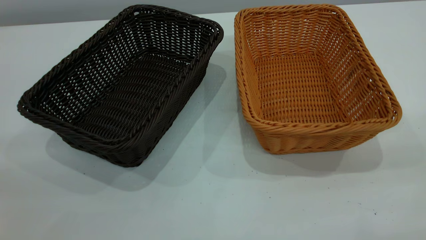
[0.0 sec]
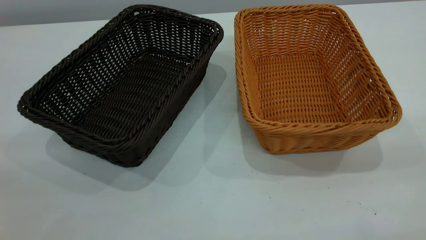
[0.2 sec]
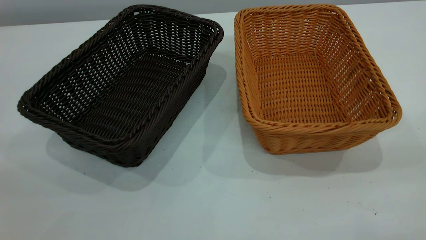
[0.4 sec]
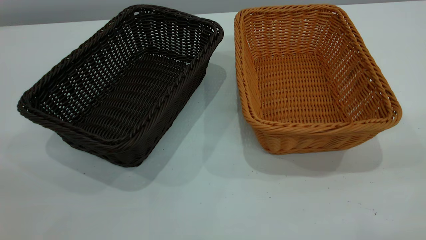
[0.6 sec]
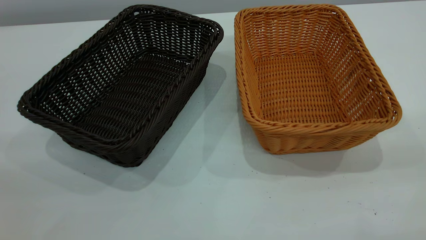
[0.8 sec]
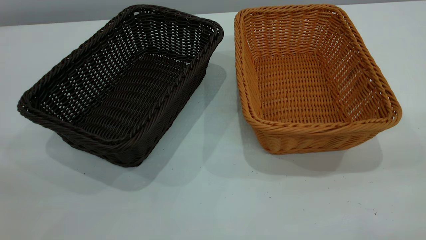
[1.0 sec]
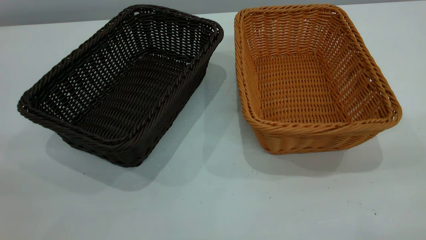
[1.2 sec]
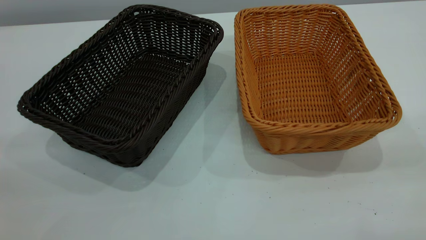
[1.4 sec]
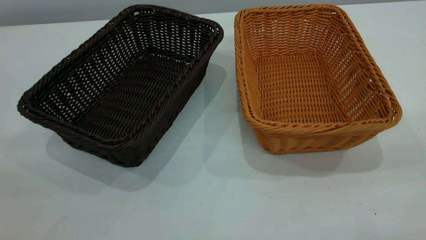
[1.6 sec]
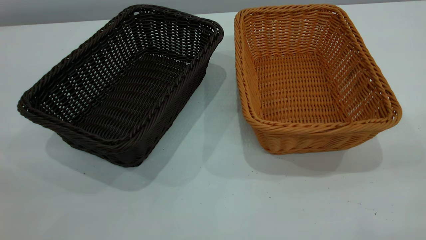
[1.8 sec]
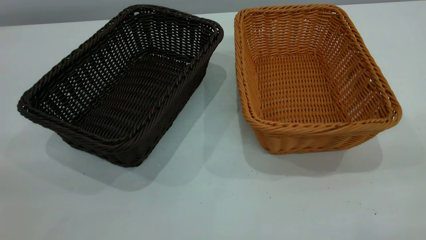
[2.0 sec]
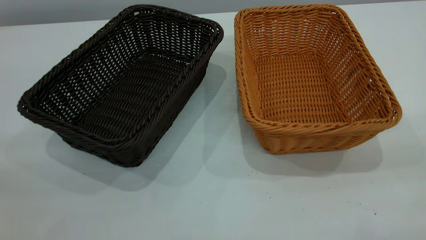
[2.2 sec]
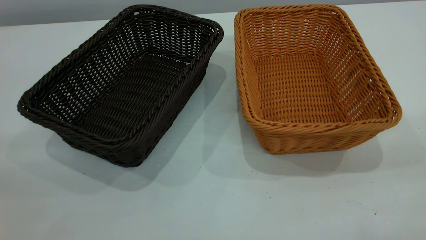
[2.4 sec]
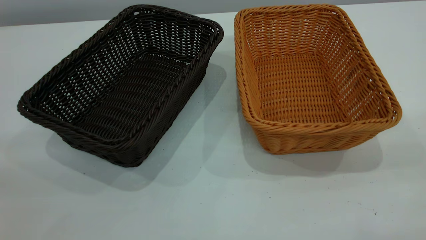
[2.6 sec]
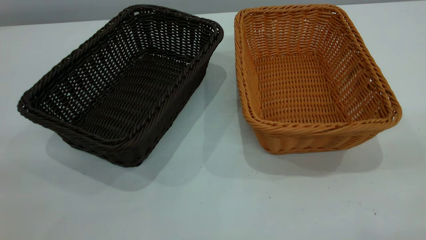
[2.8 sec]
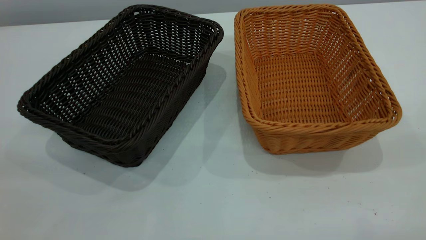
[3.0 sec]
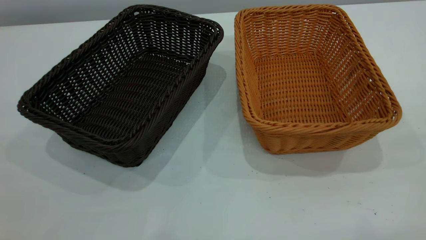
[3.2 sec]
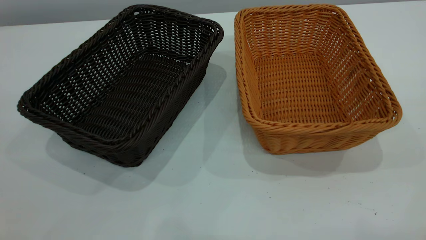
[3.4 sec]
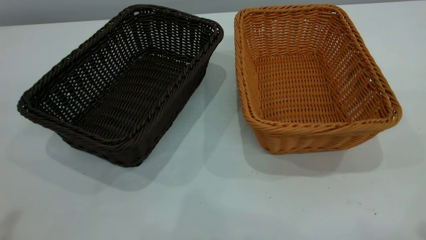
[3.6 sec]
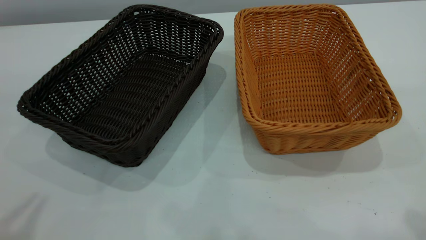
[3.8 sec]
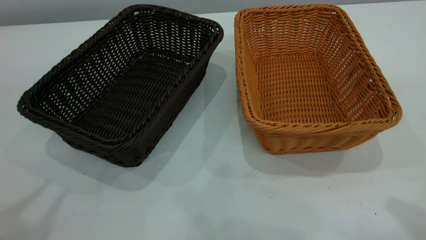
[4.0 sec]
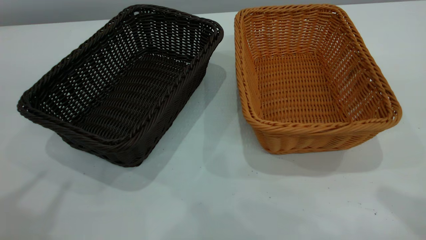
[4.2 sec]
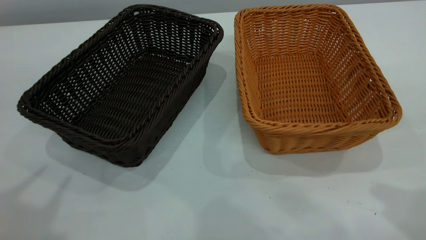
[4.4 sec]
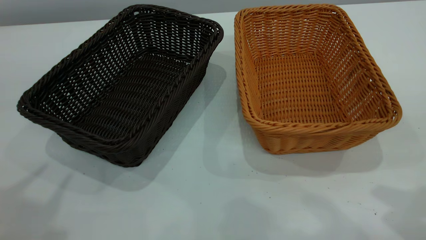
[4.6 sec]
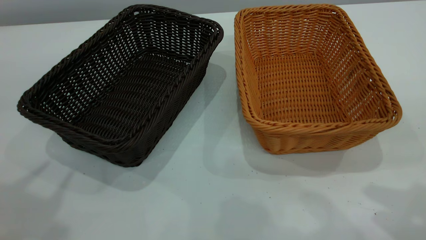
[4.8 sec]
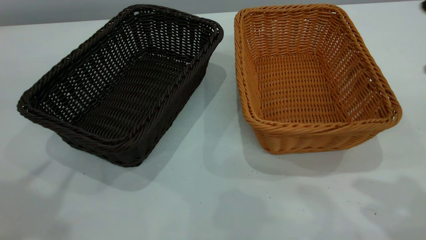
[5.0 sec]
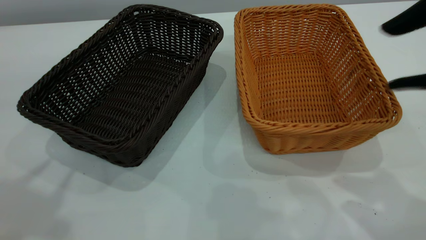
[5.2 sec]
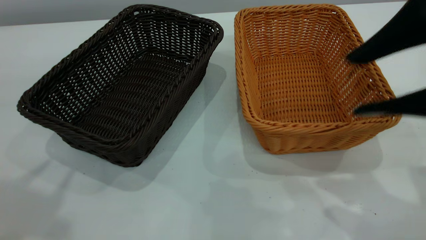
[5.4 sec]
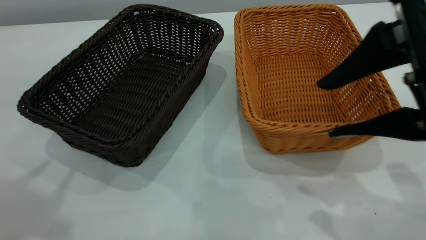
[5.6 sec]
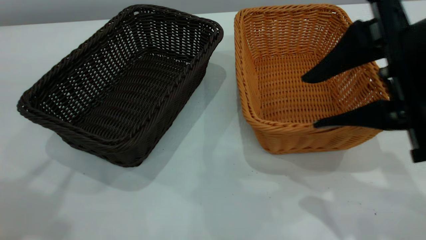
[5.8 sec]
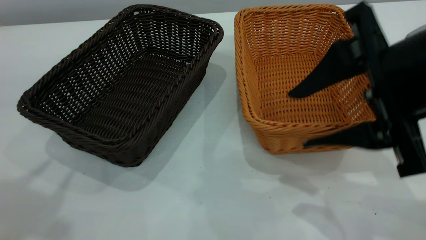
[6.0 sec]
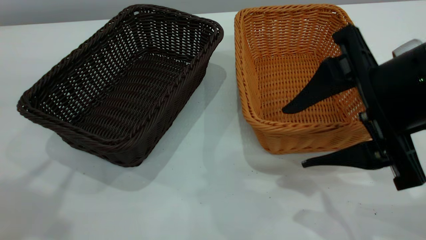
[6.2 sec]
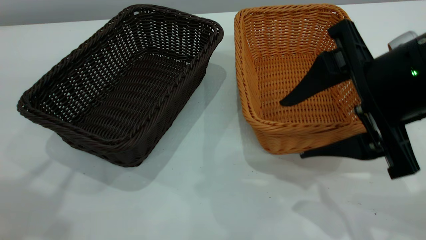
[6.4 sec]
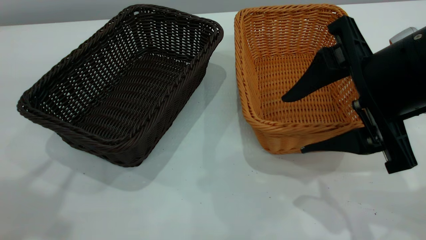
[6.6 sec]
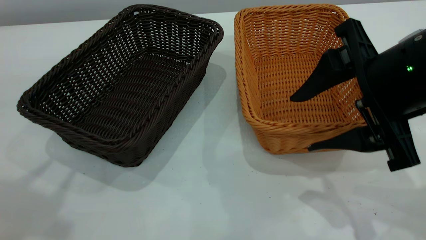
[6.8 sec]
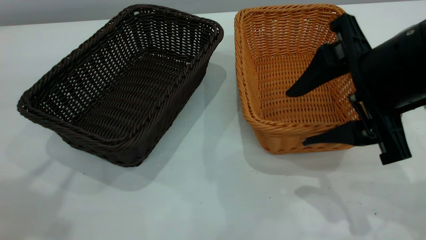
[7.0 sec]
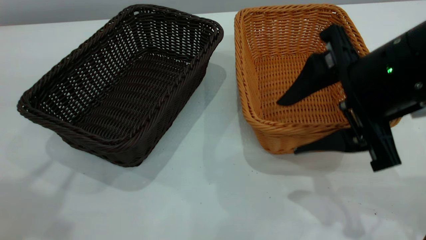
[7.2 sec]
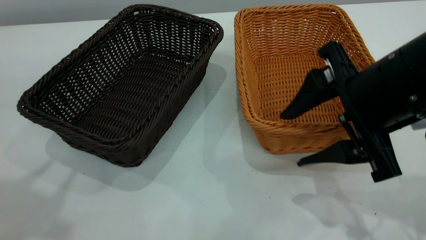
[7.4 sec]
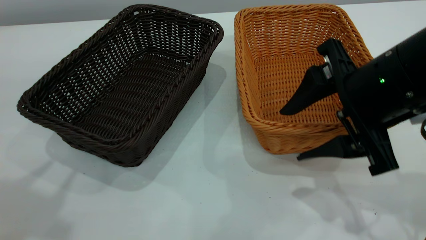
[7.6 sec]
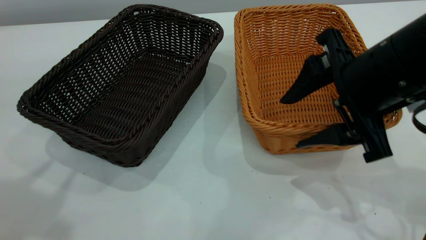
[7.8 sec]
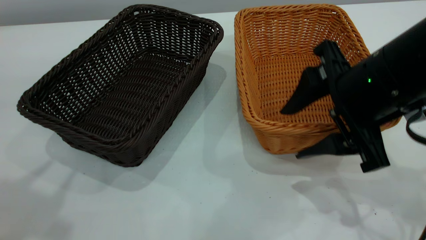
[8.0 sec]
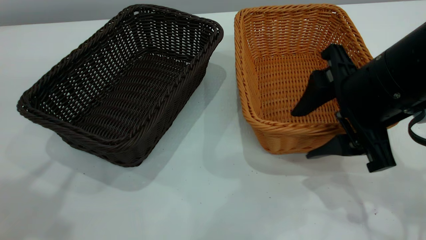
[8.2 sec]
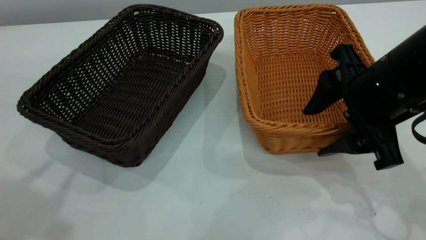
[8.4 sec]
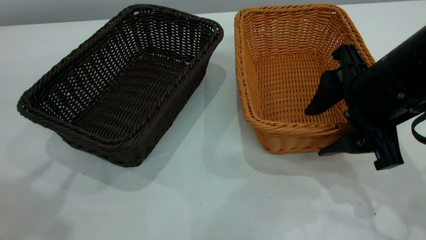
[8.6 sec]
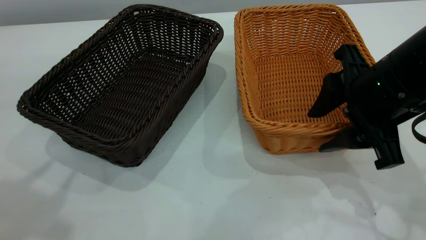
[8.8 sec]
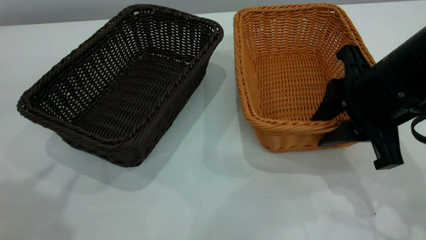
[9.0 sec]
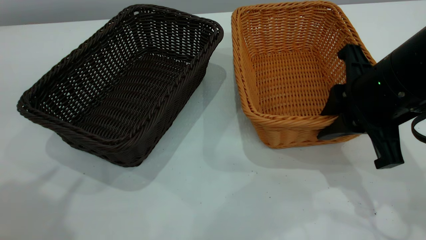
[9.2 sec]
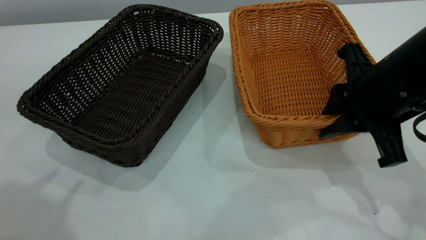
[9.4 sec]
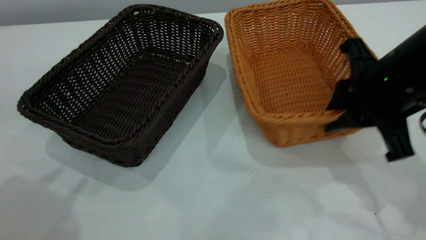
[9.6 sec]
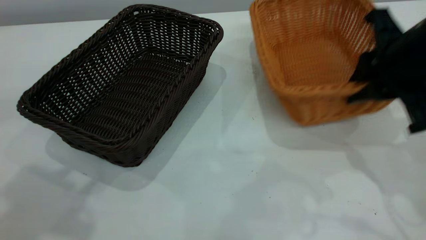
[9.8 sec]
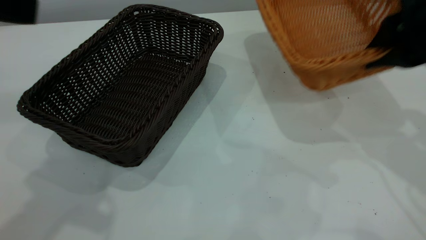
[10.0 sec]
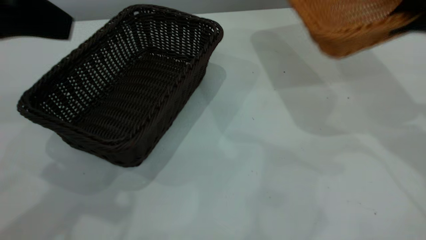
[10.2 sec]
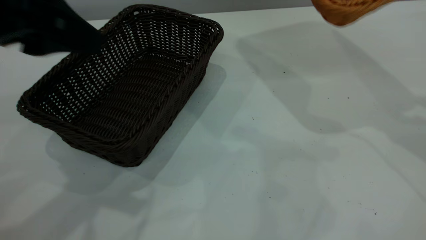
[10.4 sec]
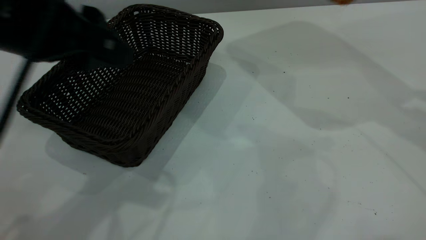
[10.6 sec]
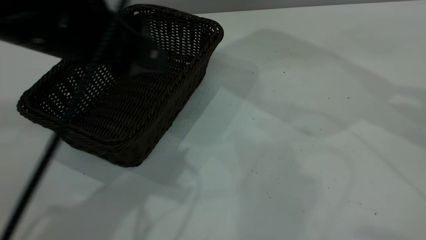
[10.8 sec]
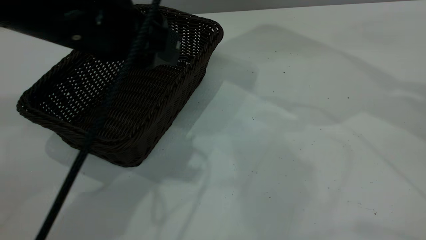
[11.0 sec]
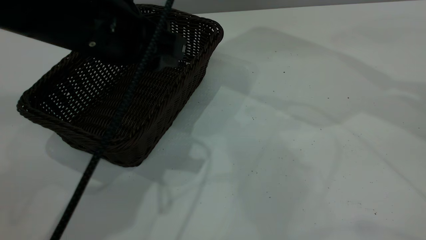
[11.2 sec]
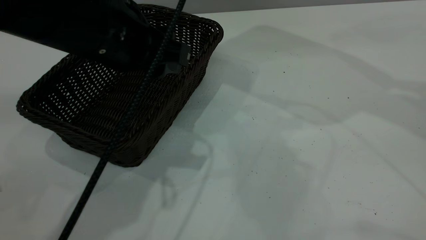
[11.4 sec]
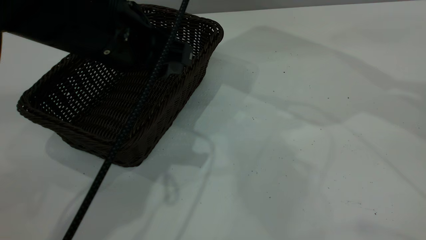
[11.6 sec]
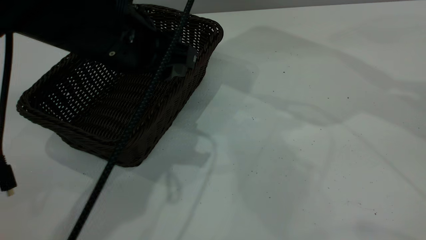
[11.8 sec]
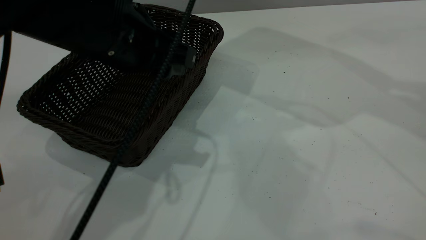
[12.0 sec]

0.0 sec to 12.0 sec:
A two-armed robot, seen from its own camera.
Task of the whole recording: the left gripper grasp the black basket and place it in the center of the table, the right gripper grasp the brown basket and place it inside the black one.
Step, 0.0 sec to 9.8 sec: Pick up the light basket with the right gripper.
0.0 sec to 1.6 sec: Neither gripper changes place.
4.4 sec to 6.0 sec: The right gripper is displaced downward, to the left and forward by approximately 15 cm.
6.0 sec to 7.6 sec: The right gripper ends up some 5 cm from where it was.
7.6 sec to 9.0 sec: The right gripper closes its fingers.
9.0 sec to 10.4 sec: The left gripper heads downward, to the right and forward, covering about 15 cm. Meanwhile the right gripper is displaced upward and to the right by some 15 cm.
10.4 sec to 12.0 sec: The right gripper travels upward by about 5 cm. The left gripper travels to the right, downward and forward by roughly 10 cm.

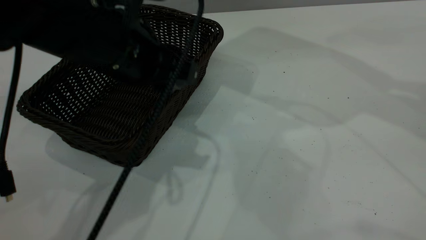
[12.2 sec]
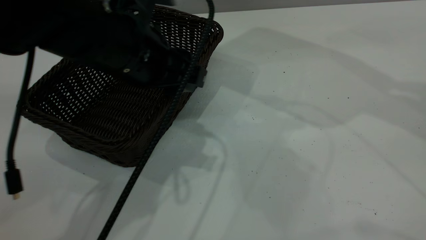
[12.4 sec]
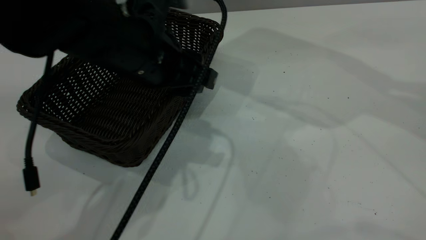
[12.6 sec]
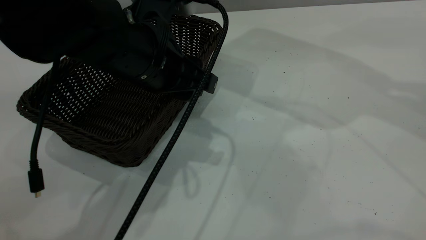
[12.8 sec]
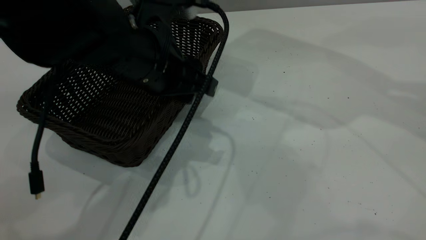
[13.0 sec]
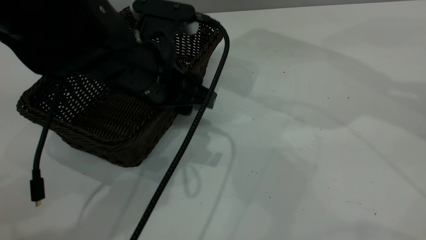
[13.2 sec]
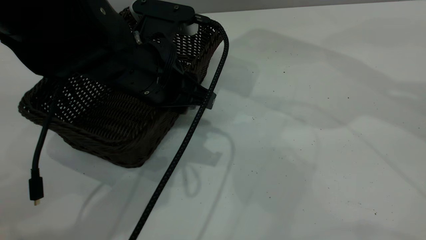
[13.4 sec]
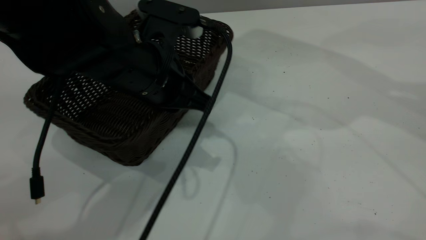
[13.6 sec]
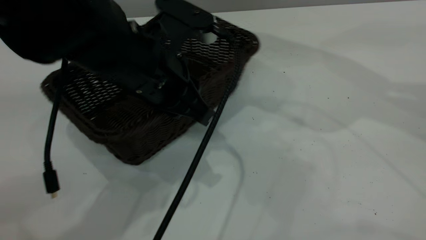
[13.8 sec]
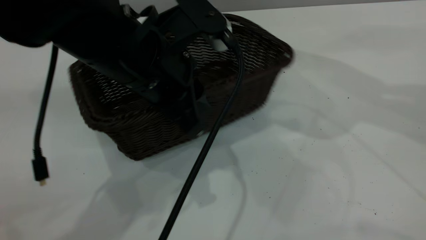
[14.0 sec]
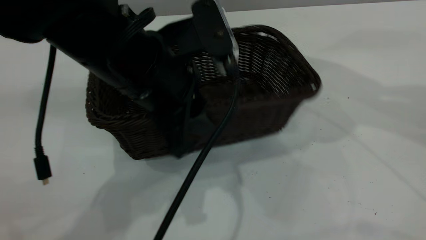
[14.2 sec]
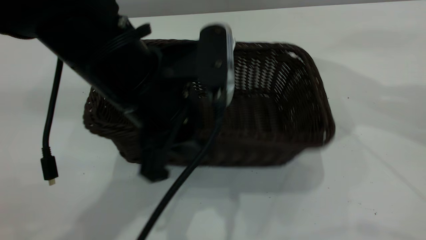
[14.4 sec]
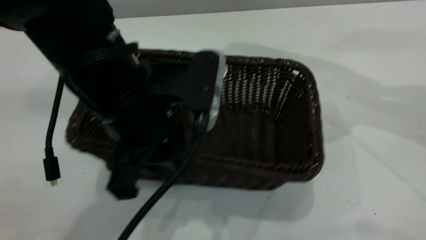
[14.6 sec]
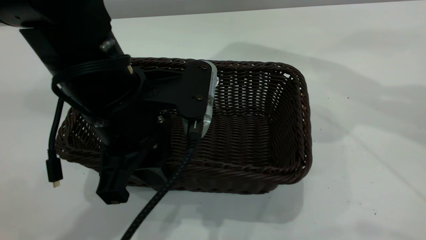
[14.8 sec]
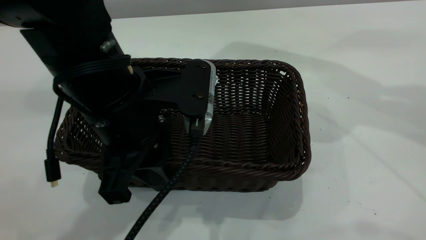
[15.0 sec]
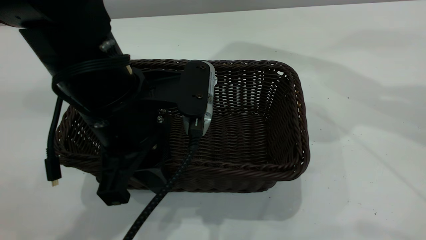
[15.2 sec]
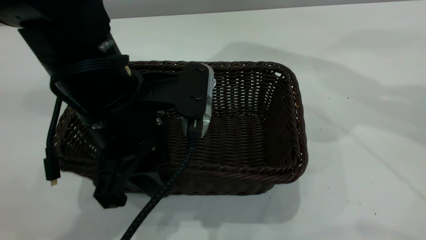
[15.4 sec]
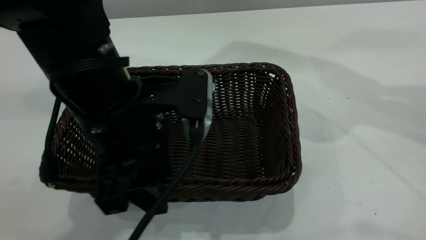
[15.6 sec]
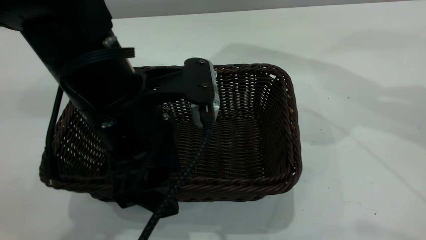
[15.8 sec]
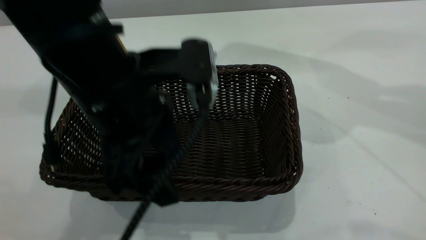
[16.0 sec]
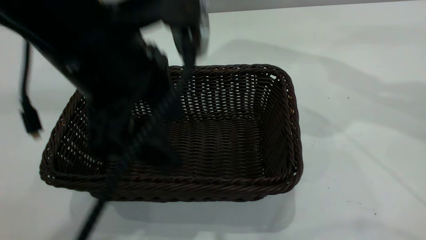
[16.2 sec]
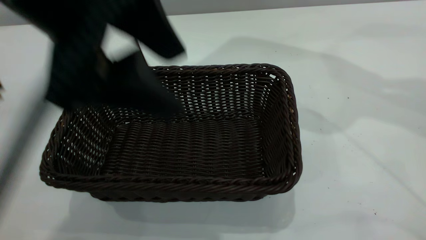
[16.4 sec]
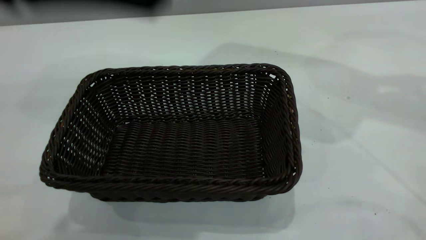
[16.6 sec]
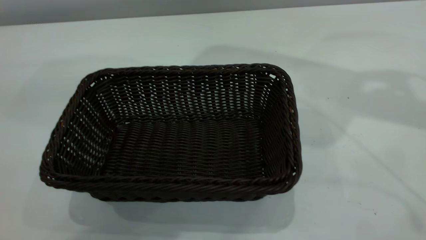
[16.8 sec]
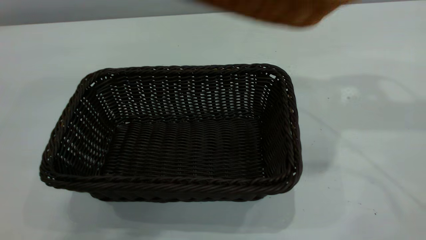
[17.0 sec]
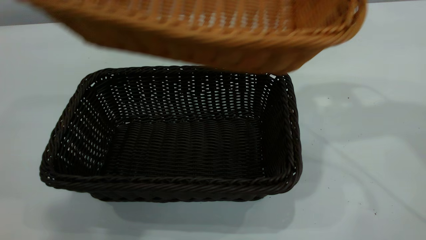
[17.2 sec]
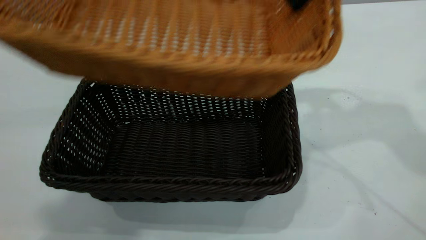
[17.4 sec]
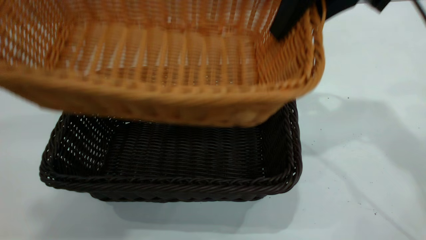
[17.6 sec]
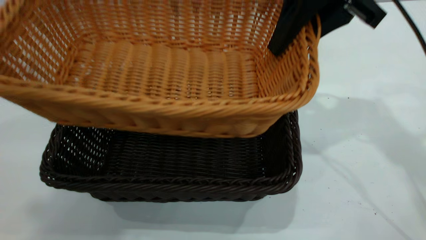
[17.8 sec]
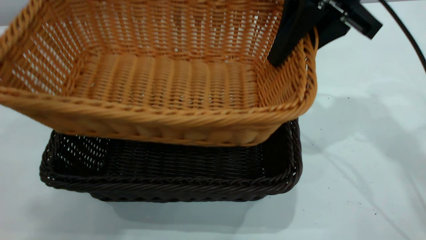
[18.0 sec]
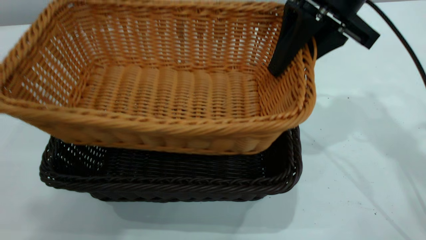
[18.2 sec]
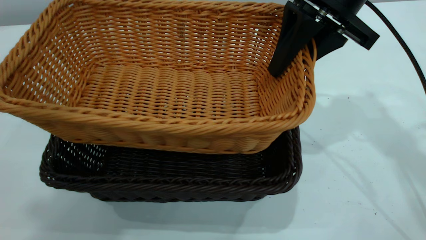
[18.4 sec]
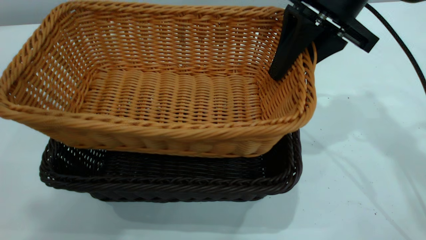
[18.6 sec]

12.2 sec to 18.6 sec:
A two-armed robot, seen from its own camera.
Task of the whole recording: the left gripper grasp the black basket and place it in the center of the table, the right gripper grasp the brown basket and place it inside the black one.
Step, 12.2 sec to 16.2 sec: Move the dark basket to the center of view.
12.2 sec to 13.8 sec: The left gripper closes up.
13.8 sec to 15.4 sec: The left gripper goes roughly 5 cm backward.
15.4 sec to 17.0 sec: The right gripper moves roughly 5 cm. Meanwhile the left gripper moves upward, roughly 30 cm, and opens its fingers.
17.0 sec to 18.6 sec: The right gripper moves downward and to the left, approximately 15 cm.
